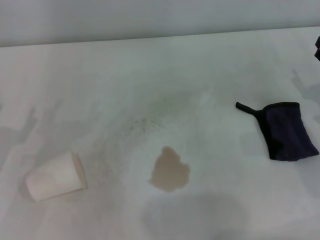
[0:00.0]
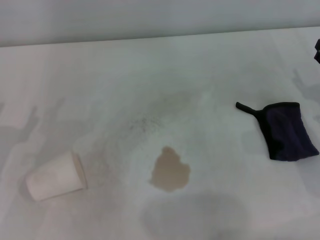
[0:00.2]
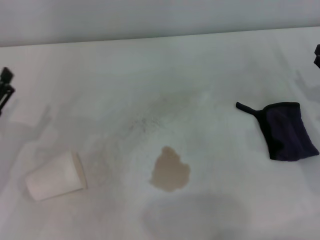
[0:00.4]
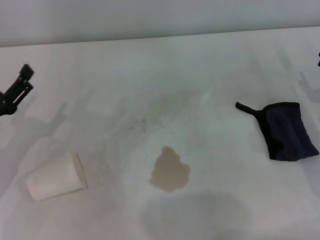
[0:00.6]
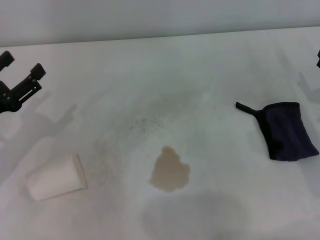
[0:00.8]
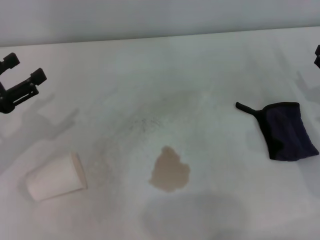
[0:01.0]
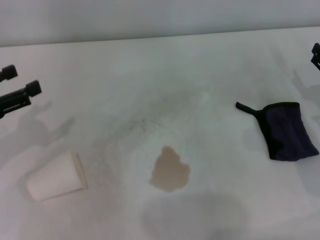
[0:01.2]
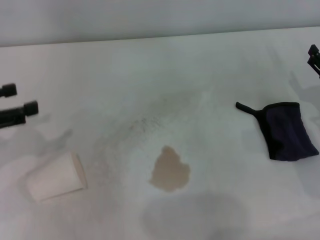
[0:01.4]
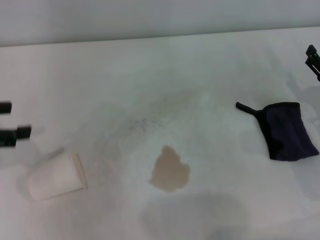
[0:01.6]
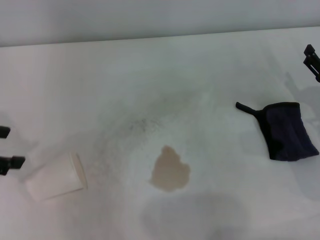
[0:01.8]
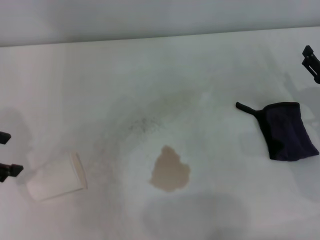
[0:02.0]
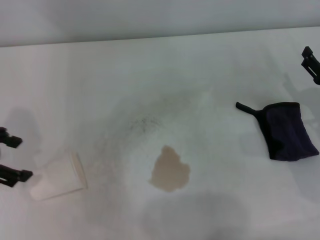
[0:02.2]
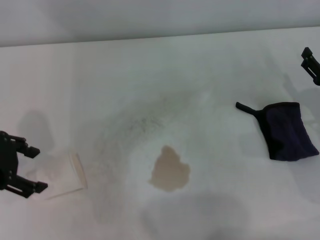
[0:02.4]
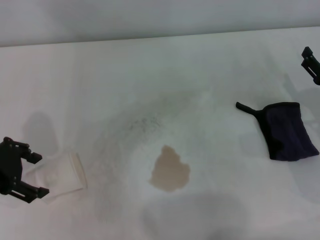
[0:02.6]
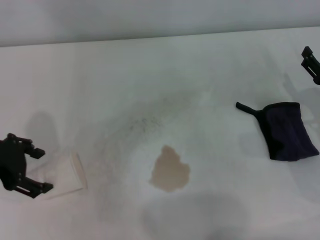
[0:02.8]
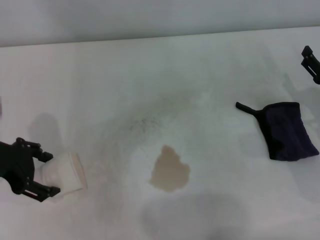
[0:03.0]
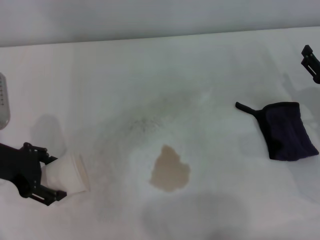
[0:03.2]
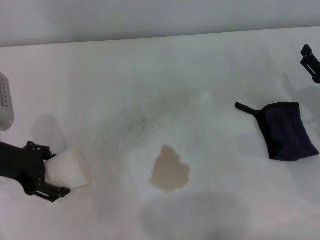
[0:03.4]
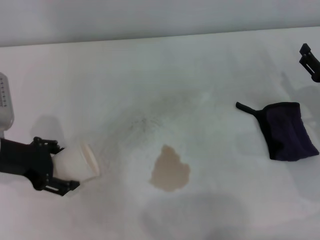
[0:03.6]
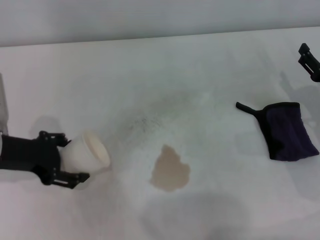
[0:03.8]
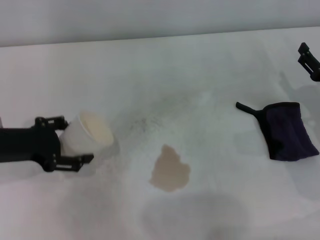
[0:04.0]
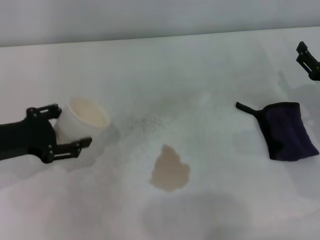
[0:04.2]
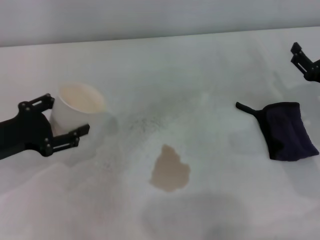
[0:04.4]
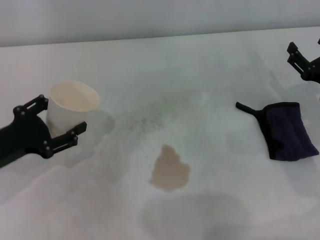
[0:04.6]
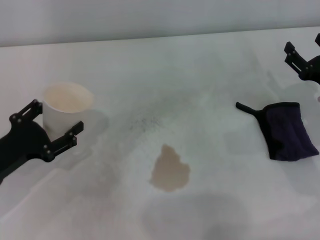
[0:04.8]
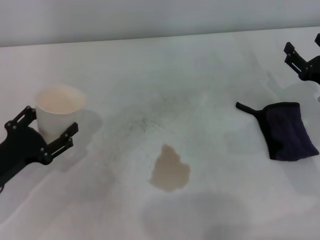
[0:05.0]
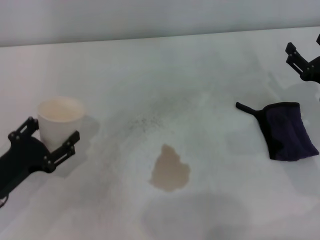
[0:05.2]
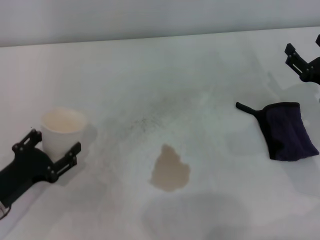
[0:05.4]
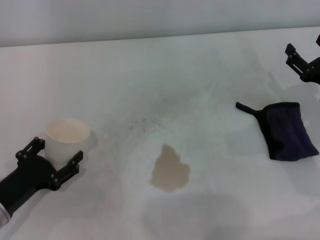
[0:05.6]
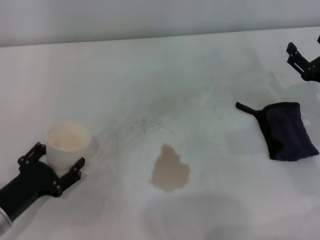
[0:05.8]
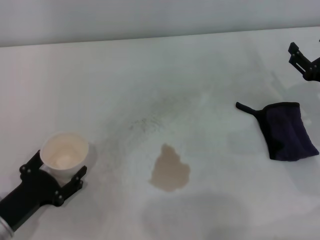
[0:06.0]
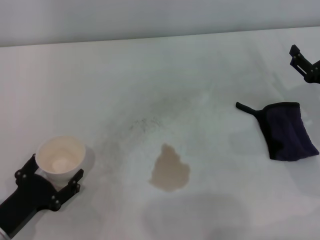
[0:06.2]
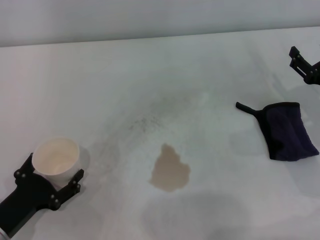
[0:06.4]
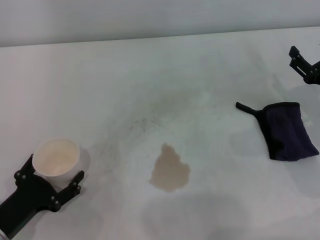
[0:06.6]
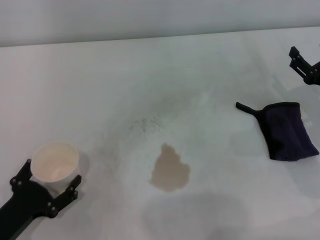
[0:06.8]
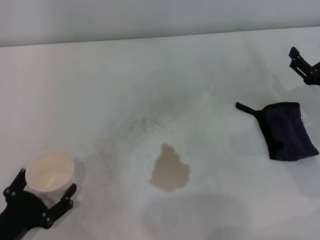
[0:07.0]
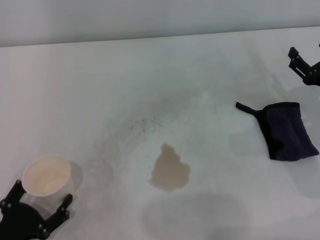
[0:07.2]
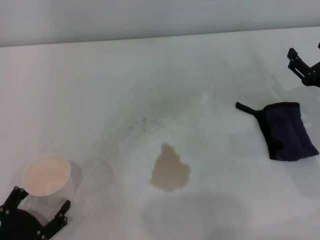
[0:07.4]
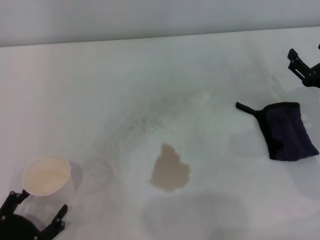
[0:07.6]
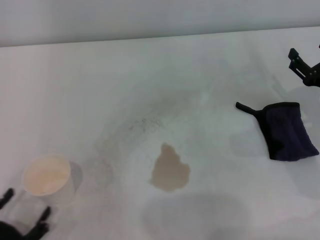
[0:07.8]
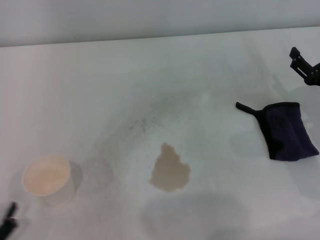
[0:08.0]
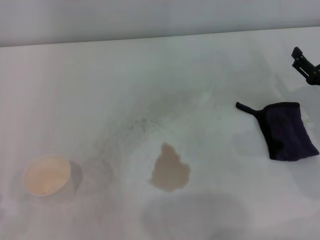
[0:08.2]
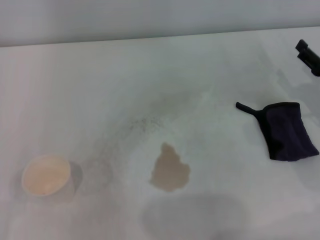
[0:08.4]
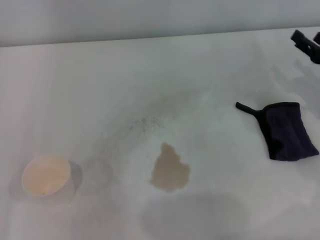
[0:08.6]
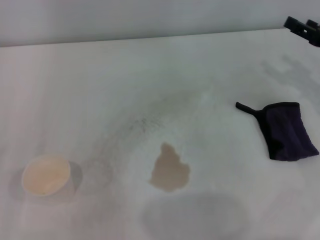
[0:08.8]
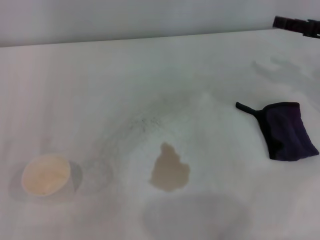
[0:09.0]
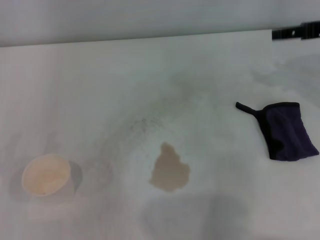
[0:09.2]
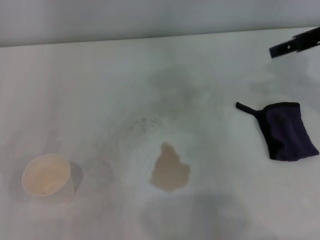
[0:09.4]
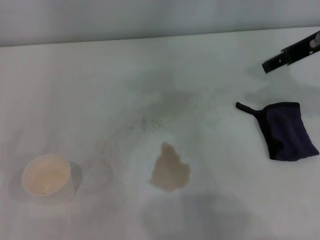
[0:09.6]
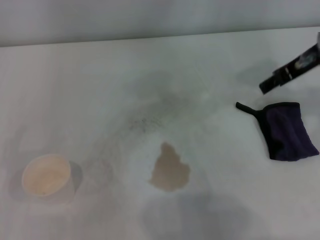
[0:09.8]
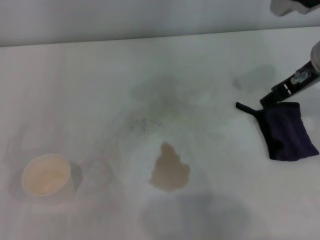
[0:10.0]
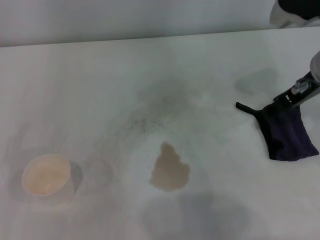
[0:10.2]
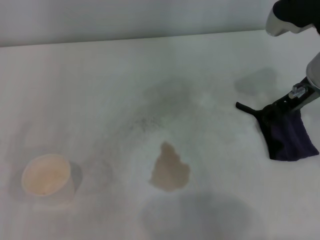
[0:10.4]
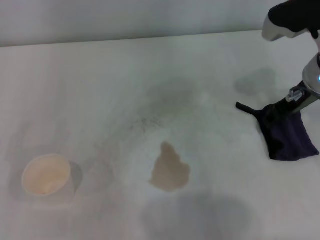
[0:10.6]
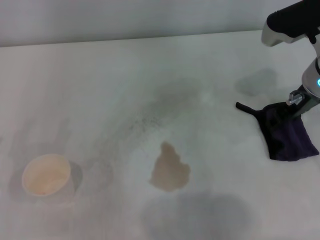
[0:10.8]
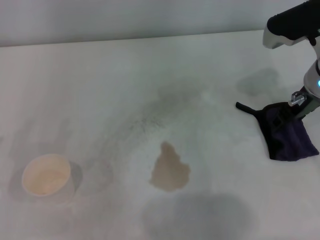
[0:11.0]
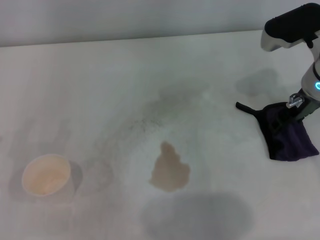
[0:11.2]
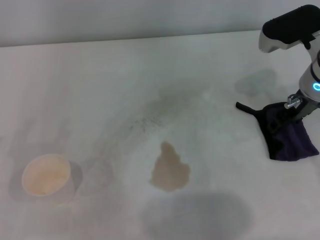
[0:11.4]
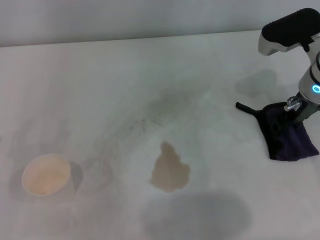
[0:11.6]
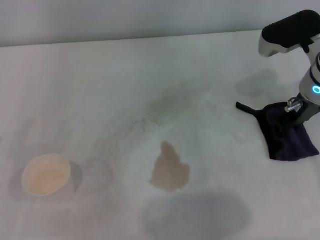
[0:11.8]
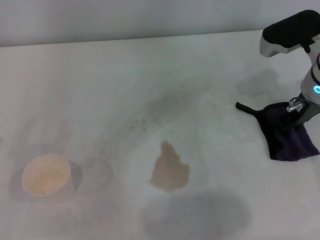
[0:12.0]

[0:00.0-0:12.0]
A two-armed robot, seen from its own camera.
Step, 0:00.0 to 0:03.4: Grasp the paper cup with the left gripper.
Step, 0:03.6 to 0:06.6: Stand the paper cup upright with the left gripper.
Step, 0:07.0 to 0:12.0: Grasp the rag with the right gripper.
0:00.0 to 0:01.6: The left gripper moves upward, roughly 15 cm.
0:01.6 to 0:03.0: The left gripper travels to the right by approximately 5 cm.
0:03.0 to 0:04.4: The left gripper moves about 5 cm.
0:04.4 to 0:06.0: The left gripper travels downward and backward by about 15 cm.
0:06.0 to 0:07.6: The left gripper goes approximately 10 cm backward.
0:07.6 to 0:09.0: The right gripper goes some 15 cm upward and forward, while the left gripper travels to the left by roughly 5 cm.
0:09.0 to 0:10.4: The right gripper is displaced to the left by approximately 10 cm.
0:10.4 to 0:12.0: The right gripper closes.

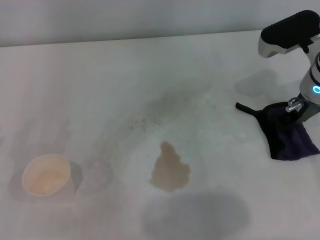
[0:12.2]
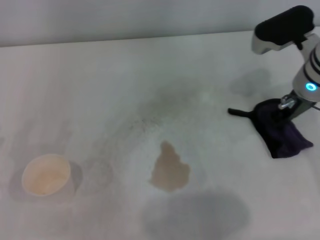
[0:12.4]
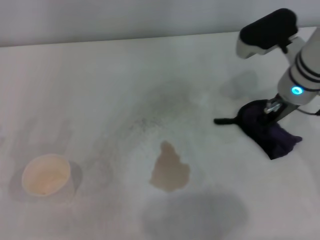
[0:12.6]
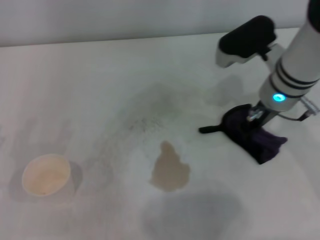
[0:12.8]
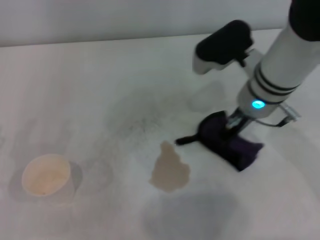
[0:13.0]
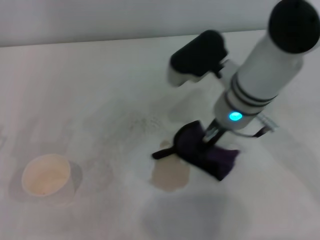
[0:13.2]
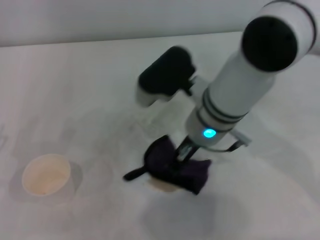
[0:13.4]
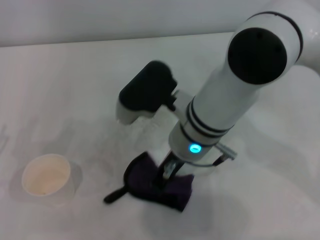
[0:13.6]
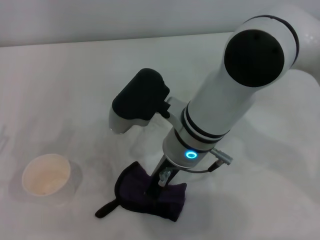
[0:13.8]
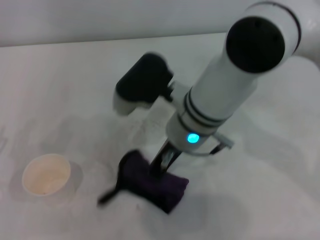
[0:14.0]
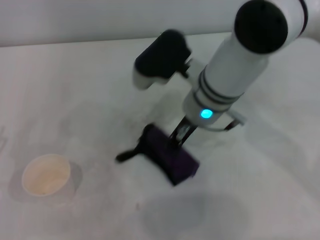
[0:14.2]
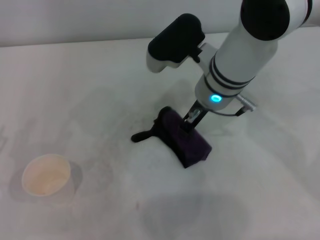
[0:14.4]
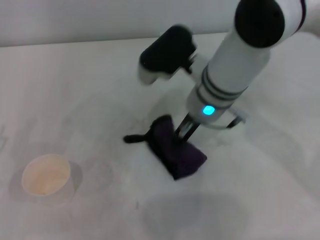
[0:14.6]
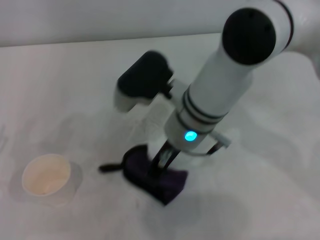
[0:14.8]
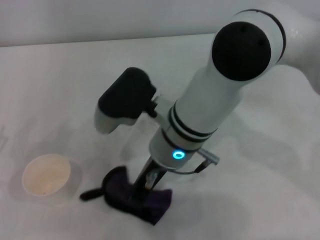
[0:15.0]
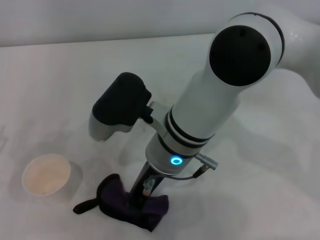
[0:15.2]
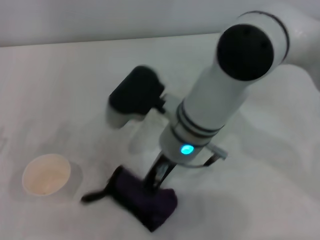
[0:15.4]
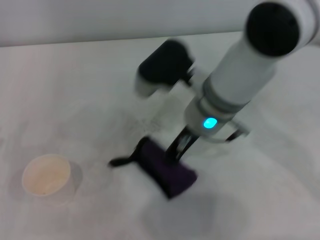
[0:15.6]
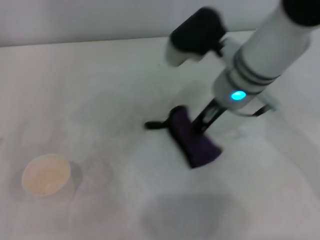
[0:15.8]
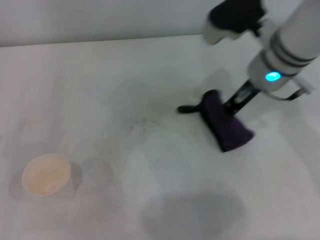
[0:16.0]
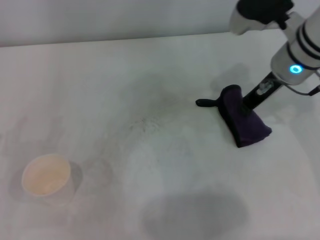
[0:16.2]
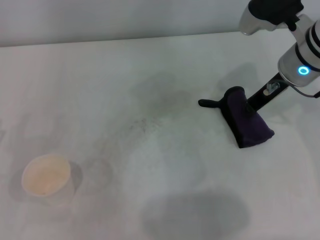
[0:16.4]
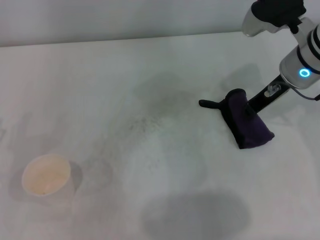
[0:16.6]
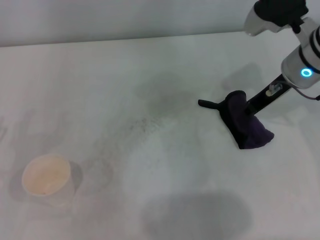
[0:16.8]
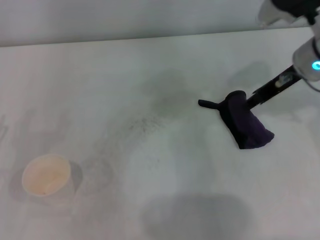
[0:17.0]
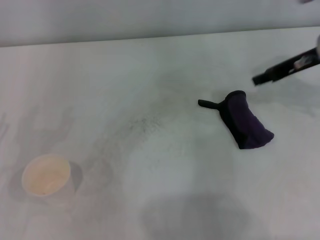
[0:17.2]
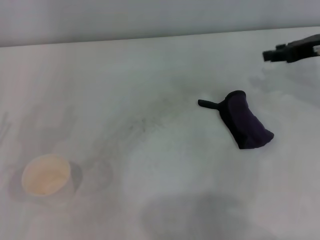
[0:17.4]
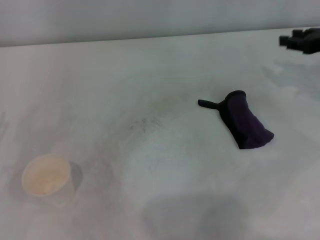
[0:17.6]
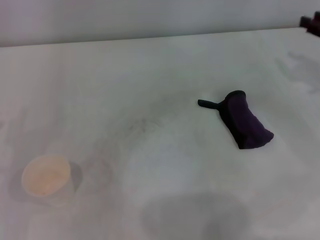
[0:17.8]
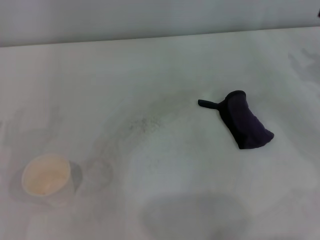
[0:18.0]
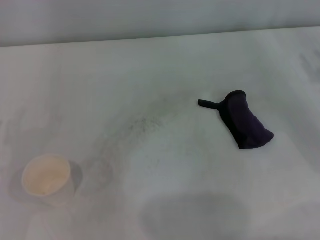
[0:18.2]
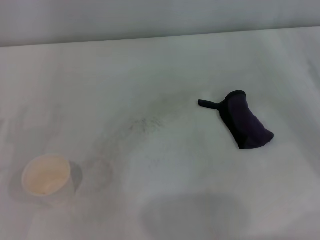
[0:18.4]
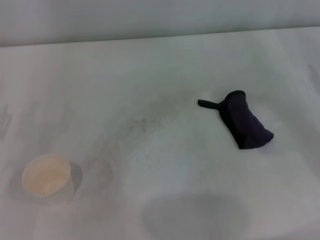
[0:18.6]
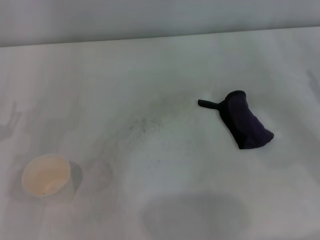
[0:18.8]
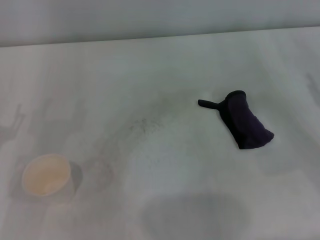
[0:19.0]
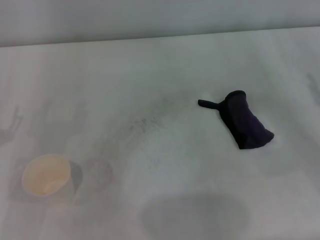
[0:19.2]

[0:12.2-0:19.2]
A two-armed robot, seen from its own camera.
Step, 0:12.2 to 0:15.8: Wipe the stains off the table with the right gripper.
Step, 0:16.0 to 0:16.8: Place the rag on the table with the right gripper.
0:12.2 to 0:13.6: The right gripper is displaced to the left by some 20 cm.
0:15.0 to 0:16.4: The right gripper goes roughly 20 cm to the right and forward.
0:16.4 to 0:17.8: The right gripper shifts approximately 15 cm to the right.
